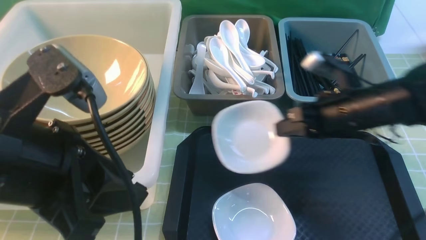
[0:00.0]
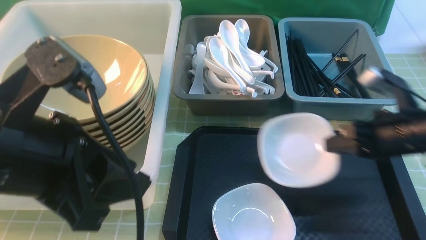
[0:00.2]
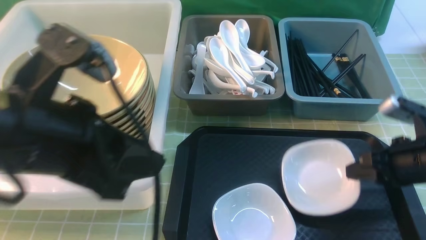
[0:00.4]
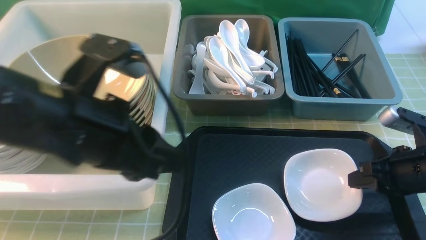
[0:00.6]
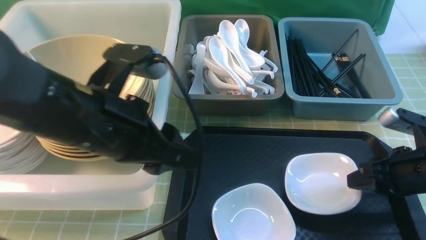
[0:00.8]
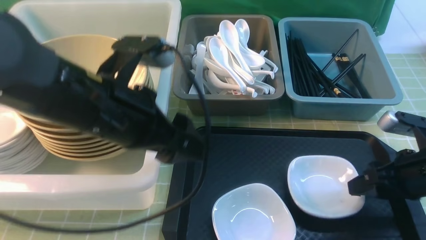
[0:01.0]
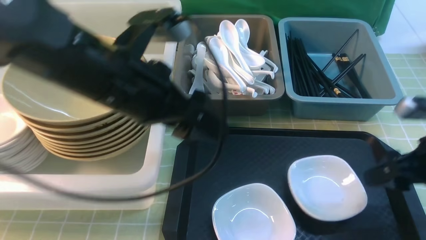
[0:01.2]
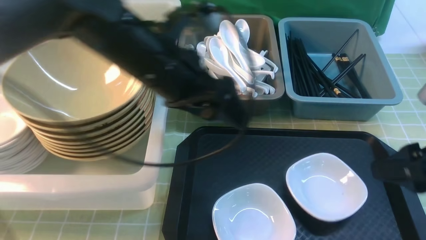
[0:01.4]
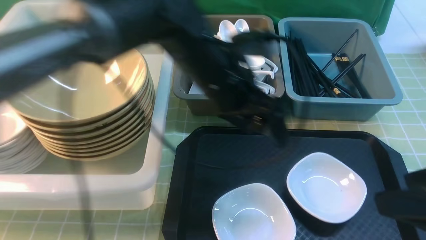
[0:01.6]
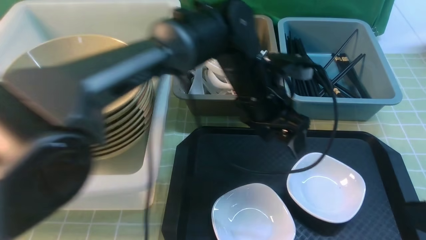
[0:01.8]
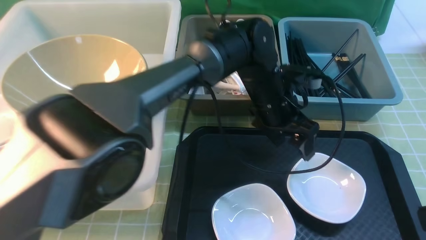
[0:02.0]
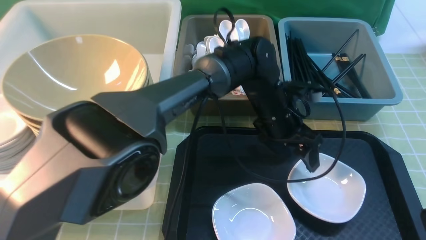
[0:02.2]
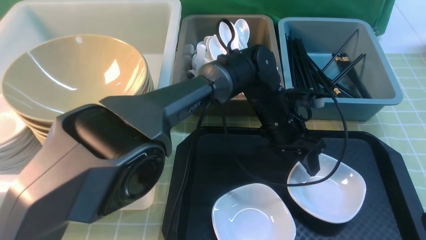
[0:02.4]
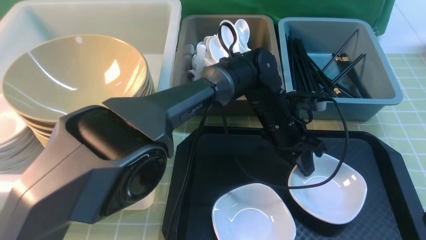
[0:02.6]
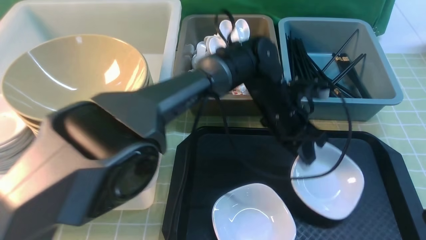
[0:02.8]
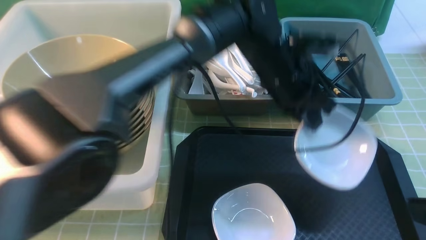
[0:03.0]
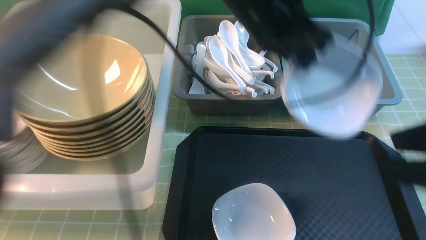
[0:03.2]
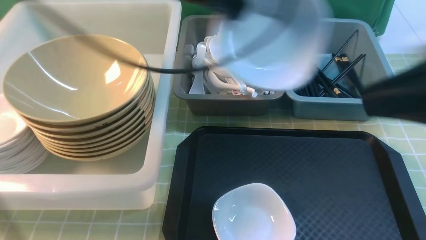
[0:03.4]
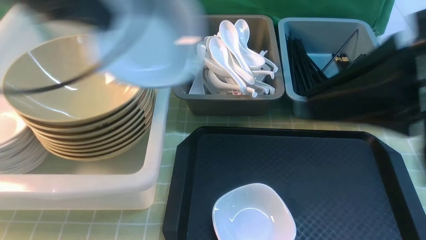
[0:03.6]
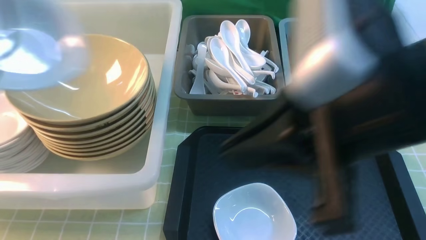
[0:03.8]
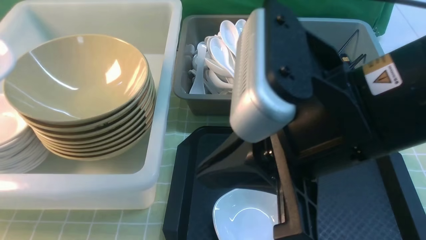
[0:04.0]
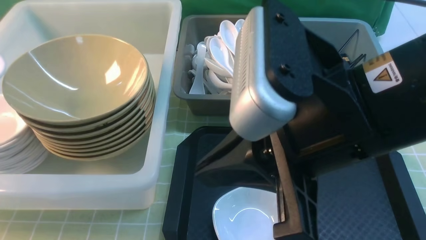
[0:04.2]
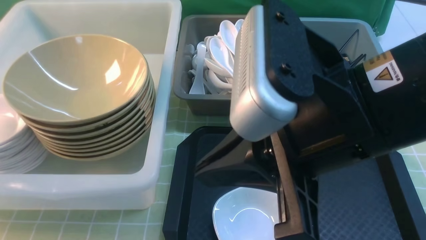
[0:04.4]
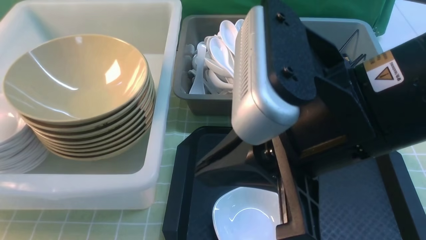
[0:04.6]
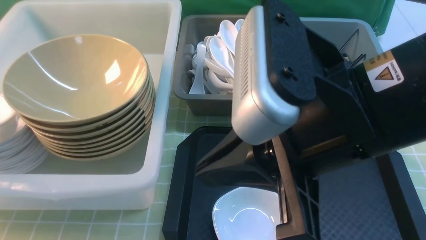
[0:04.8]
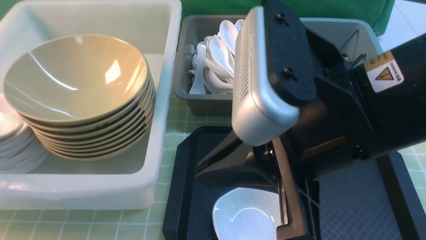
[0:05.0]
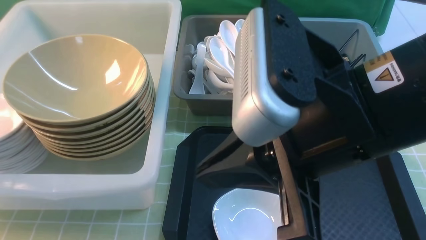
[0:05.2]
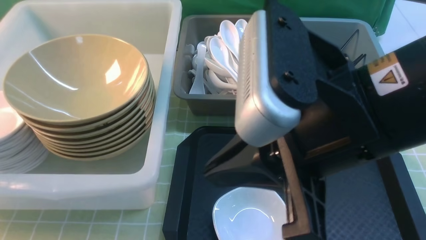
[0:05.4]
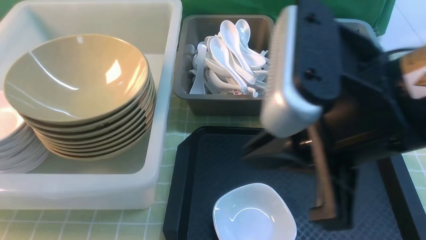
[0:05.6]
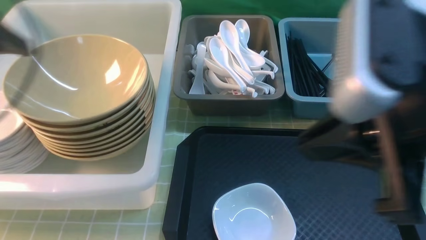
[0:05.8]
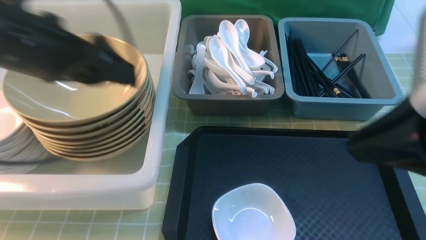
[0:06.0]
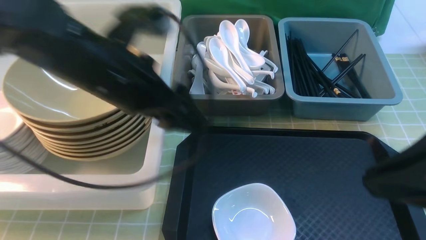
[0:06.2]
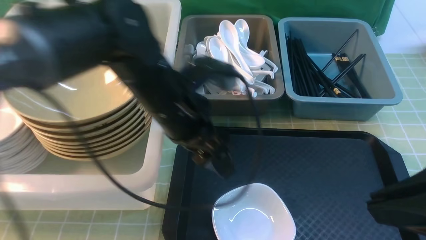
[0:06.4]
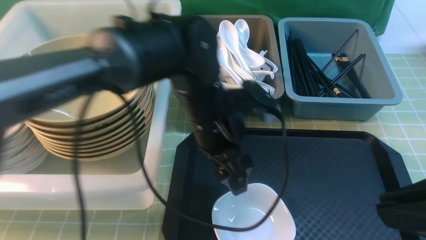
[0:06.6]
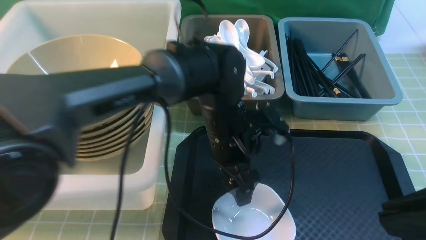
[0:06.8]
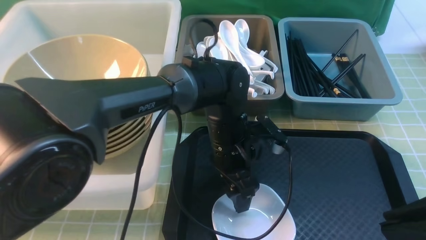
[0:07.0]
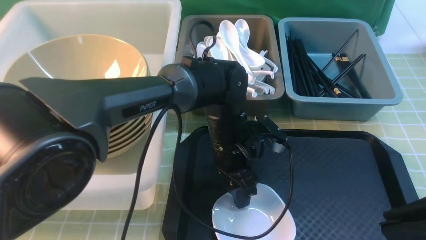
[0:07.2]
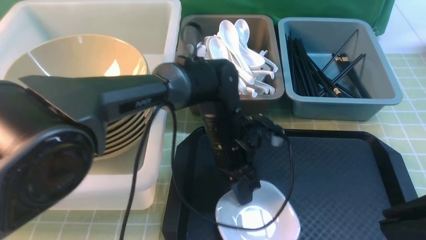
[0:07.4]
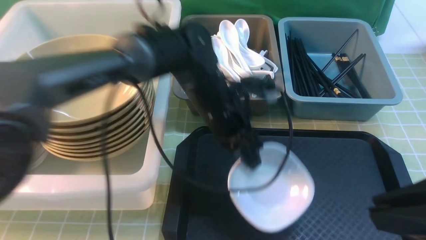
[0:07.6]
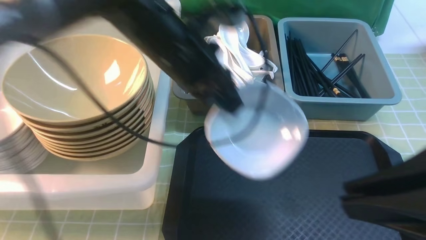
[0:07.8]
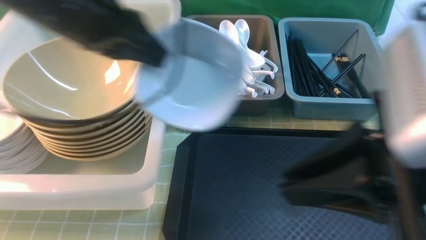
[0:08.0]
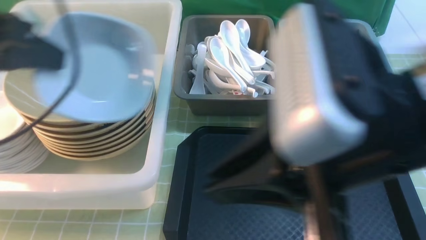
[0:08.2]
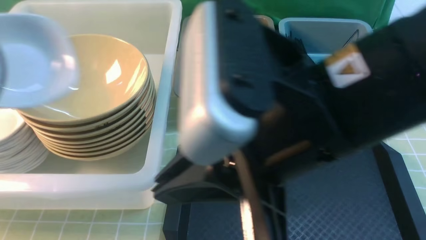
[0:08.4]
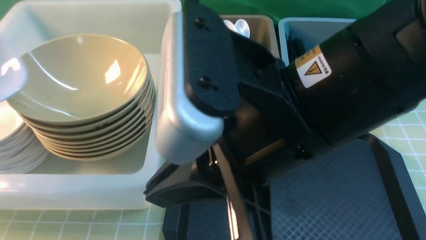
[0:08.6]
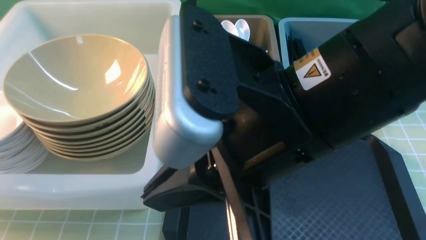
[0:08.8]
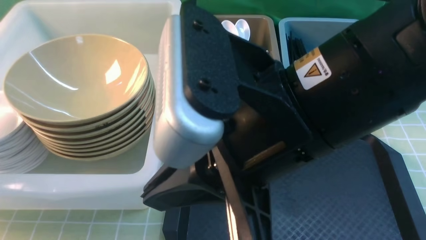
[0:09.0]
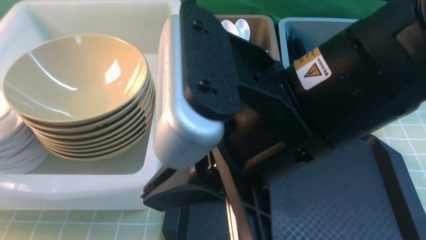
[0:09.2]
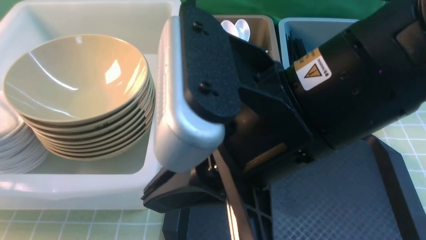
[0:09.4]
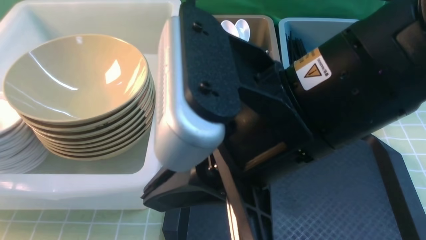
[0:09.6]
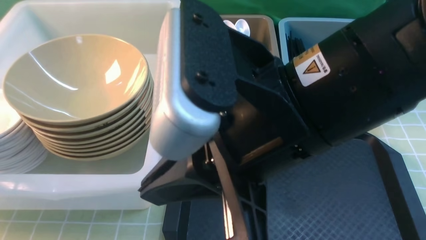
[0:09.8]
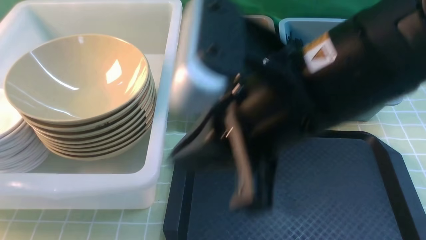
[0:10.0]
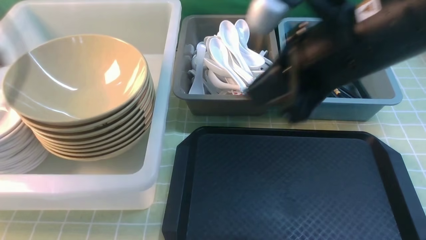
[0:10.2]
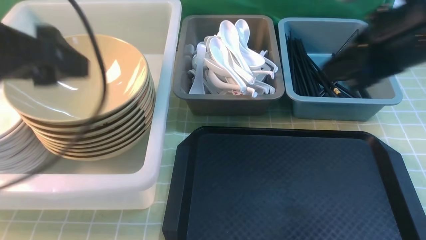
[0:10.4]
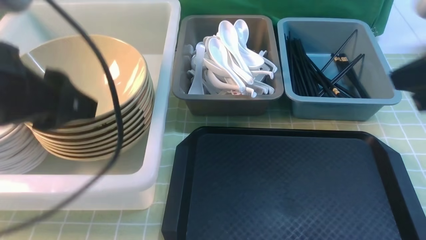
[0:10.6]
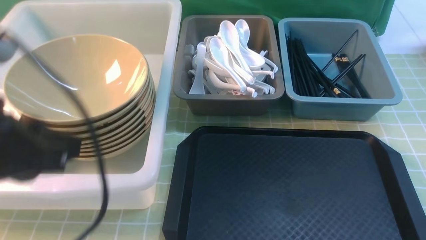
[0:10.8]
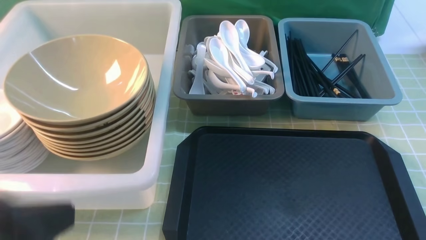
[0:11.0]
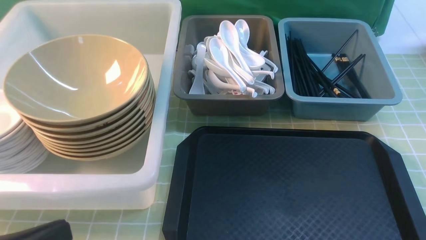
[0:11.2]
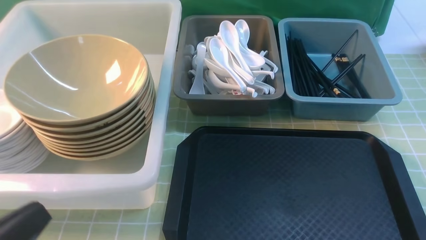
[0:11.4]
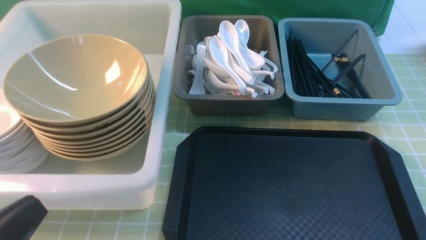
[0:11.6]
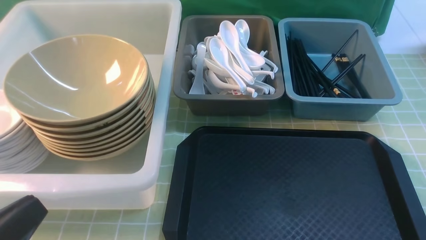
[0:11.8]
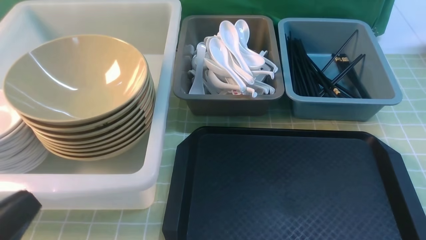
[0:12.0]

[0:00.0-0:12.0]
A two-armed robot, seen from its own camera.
Task of the whole recording: on green table put chopsticks spoon bowls plates into blue grey white boxes.
Step, 0:00.0 to 0:01.2: use the right arm to put the plate on the tray.
Step, 0:01.4 to 0:03.0: use the left arm to grab the plate.
Step, 0:03.2 to 0:05.4: use the left arm to put the plate into the large storage box on the left.
Step, 0:05.6 to 0:07.4: use the left arm to grab the plate.
Step, 0:07.8 to 0:10.0: use the left arm to put the plate into the large storage box on the left.
0:00.0 to 0:01.6: The left gripper moves forward, to the right and downward, some 25 cm, and opens its fingers. The right gripper shifts approximately 20 cm backward and upward, and opens its fingers.
0:01.6 to 0:03.0: The left gripper is displaced to the right by approximately 5 cm, moves roughly 10 cm downward and comes back, and closes its fingers. Meanwhile the right gripper ends up some 5 cm from where it was.
0:03.0 to 0:04.4: The left gripper travels to the left by roughly 50 cm. Meanwhile the right gripper is displaced to the left by approximately 15 cm, and closes.
0:04.4 to 0:06.0: The right gripper goes roughly 10 cm to the right. Meanwhile the left gripper moves to the right, some 20 cm, and opens its fingers.
0:06.0 to 0:07.6: The left gripper goes approximately 20 cm to the right and downward, and closes up. The right gripper moves roughly 5 cm.
0:07.6 to 0:09.0: The left gripper shifts about 40 cm to the left. The right gripper travels to the left and forward by approximately 15 cm.
0:09.0 to 0:10.4: The left gripper travels to the right by roughly 20 cm, and opens its fingers, while the right gripper is displaced to the right and forward by about 20 cm.
0:10.4 to 0:12.0: The left gripper goes about 20 cm backward and downward, and closes. Meanwhile the right gripper moves backward, downward and to the right, roughly 25 cm.

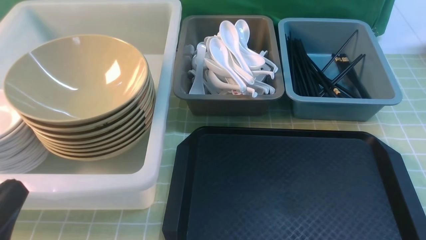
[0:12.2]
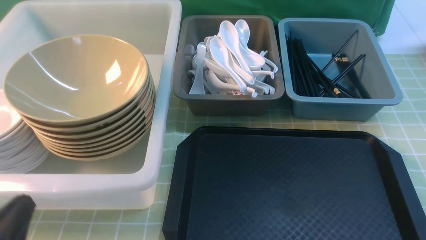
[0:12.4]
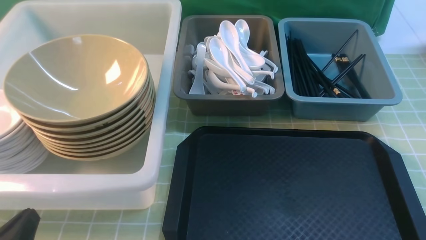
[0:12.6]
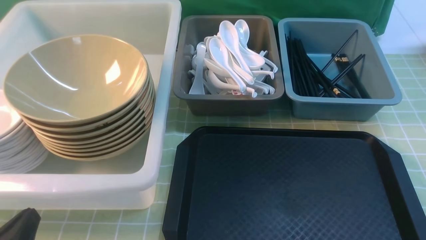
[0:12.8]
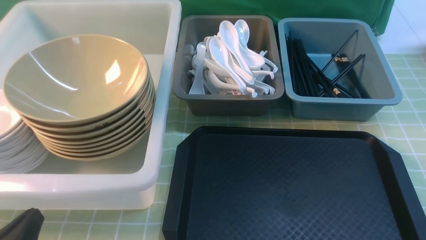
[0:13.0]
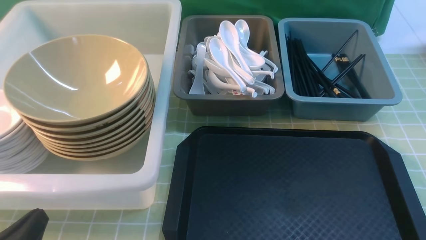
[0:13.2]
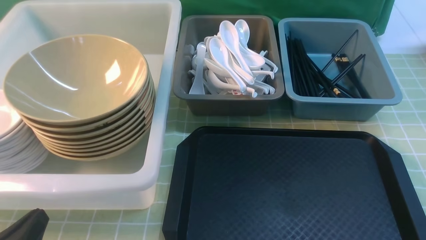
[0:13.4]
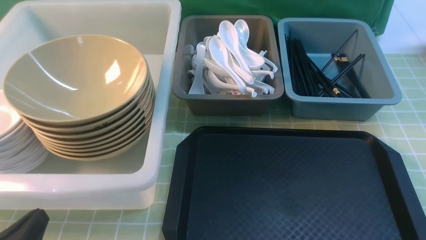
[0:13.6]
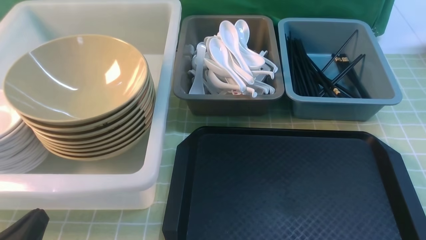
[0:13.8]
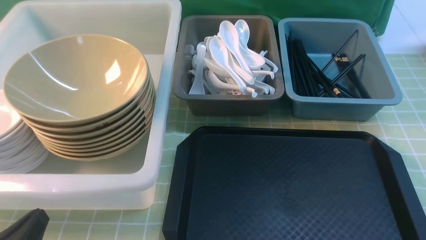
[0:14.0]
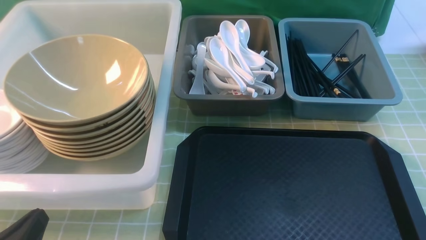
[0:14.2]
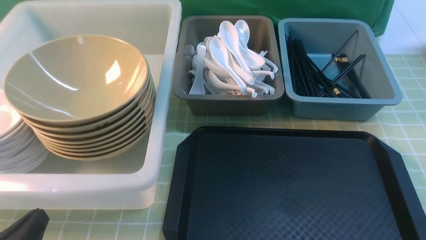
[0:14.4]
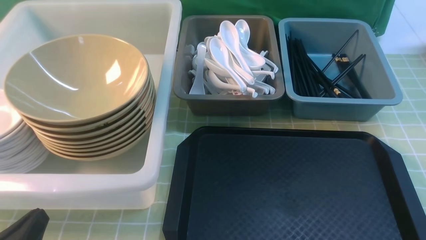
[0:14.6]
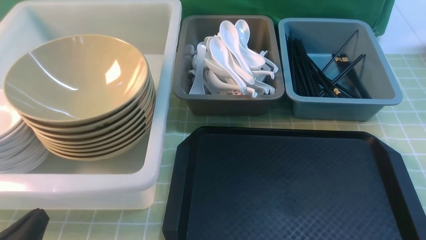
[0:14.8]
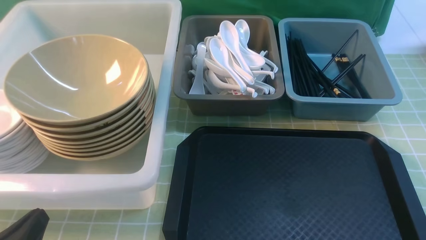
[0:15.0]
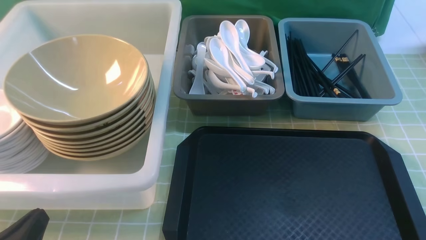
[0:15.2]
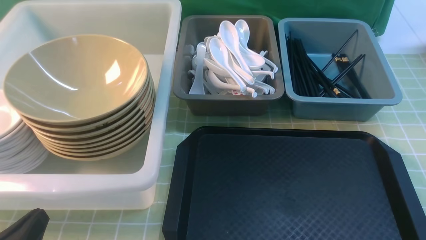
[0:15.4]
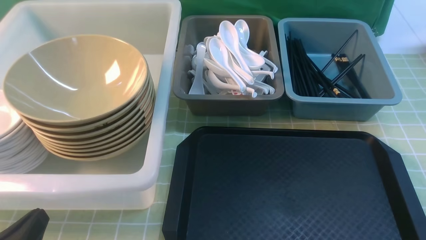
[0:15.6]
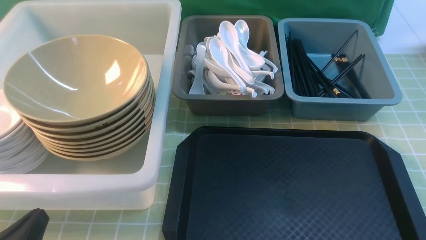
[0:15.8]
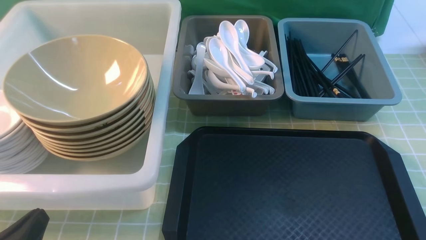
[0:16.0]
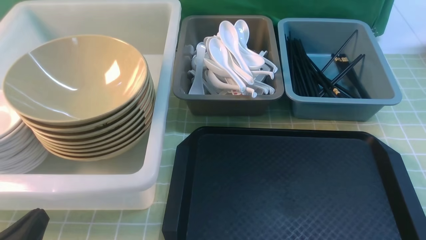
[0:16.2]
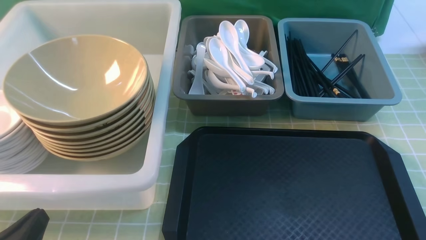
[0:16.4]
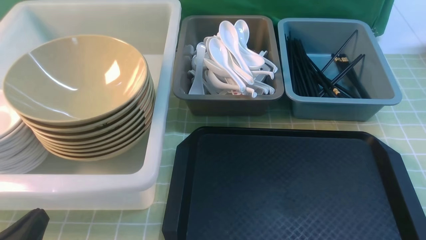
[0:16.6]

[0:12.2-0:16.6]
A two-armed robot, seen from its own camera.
Task of the whole recording: on green table put chopsticks spoon bowls plates into blue grey white boxes.
0:12.2 to 0:13.6: The left gripper goes some 5 cm downward.
0:15.2 to 0:16.6: Both grippers stay about where they are.
